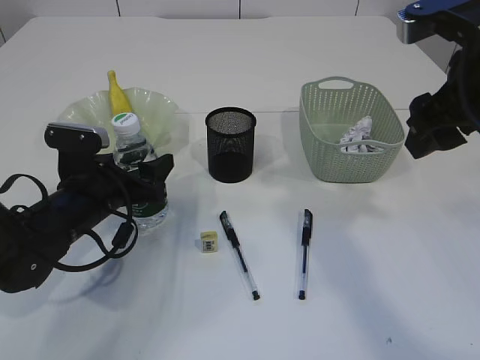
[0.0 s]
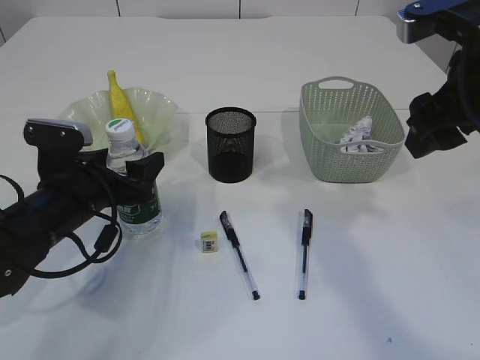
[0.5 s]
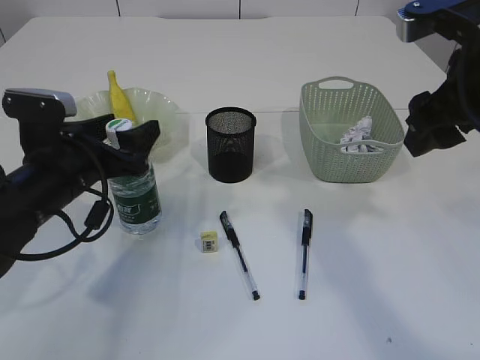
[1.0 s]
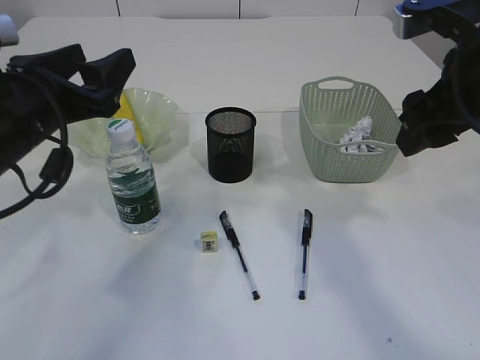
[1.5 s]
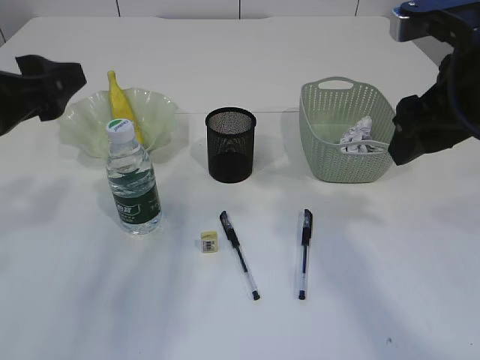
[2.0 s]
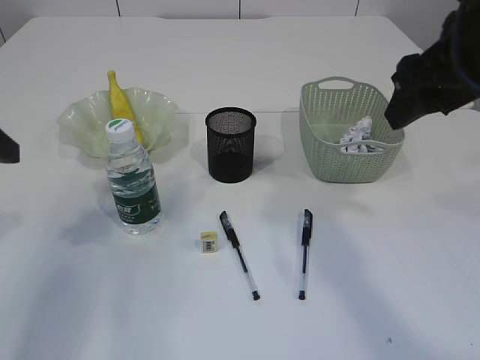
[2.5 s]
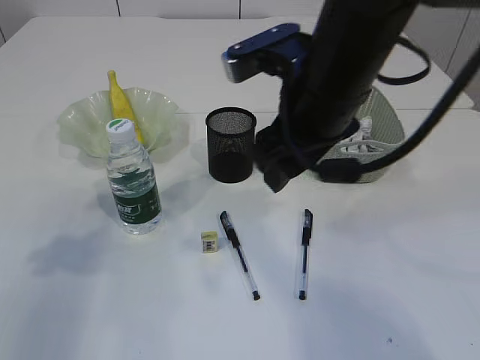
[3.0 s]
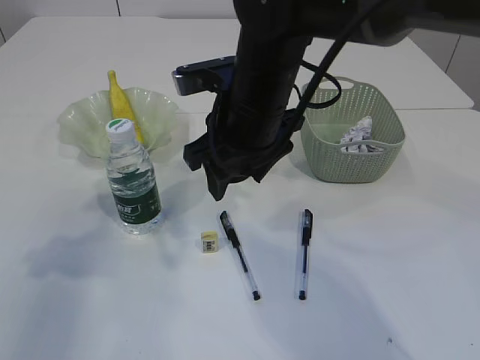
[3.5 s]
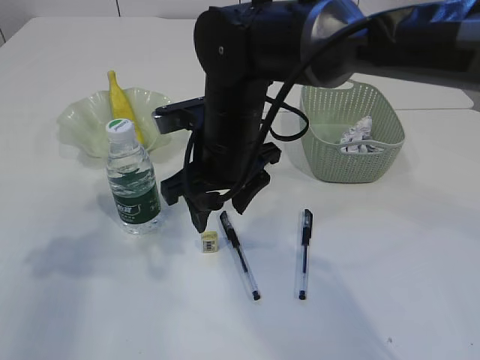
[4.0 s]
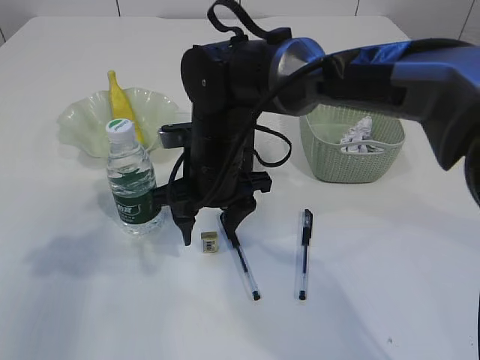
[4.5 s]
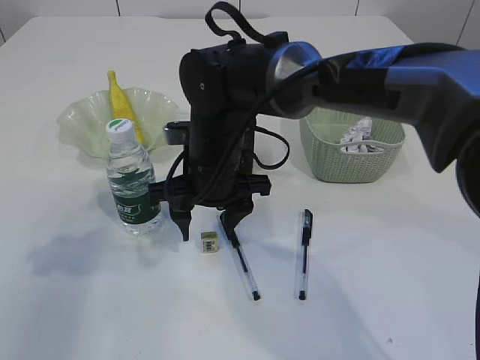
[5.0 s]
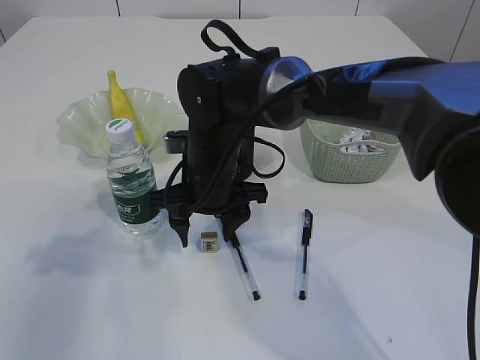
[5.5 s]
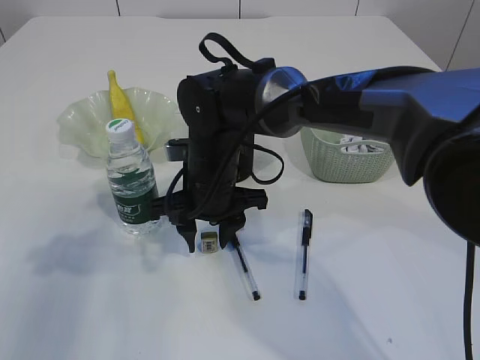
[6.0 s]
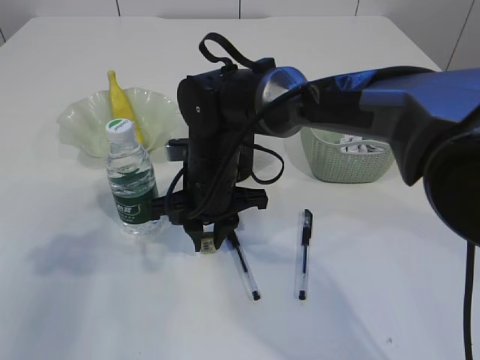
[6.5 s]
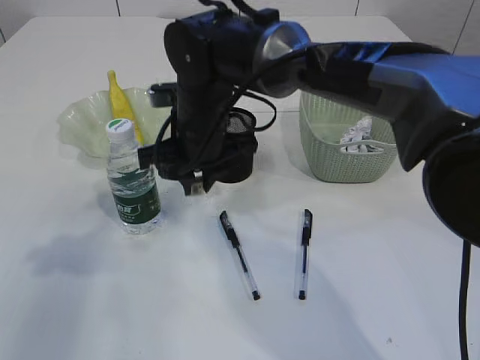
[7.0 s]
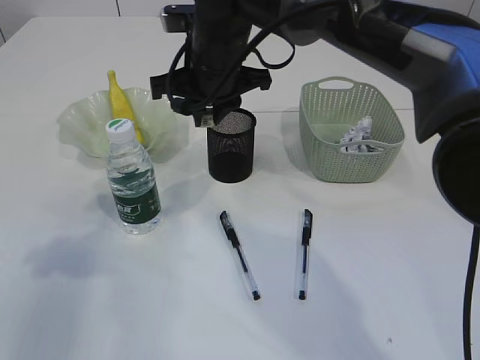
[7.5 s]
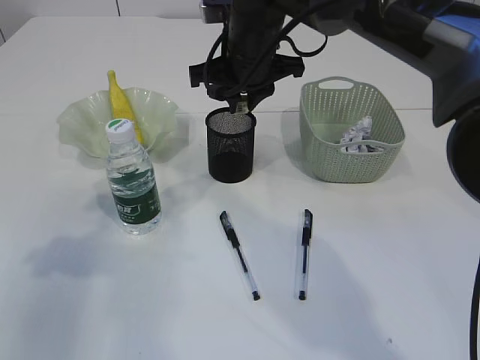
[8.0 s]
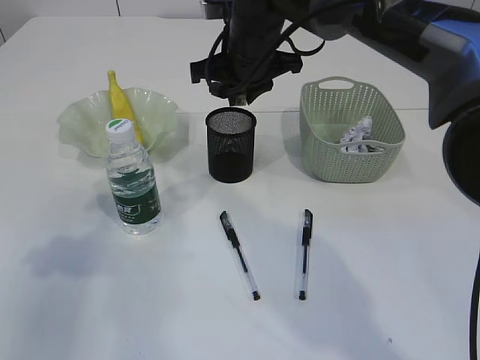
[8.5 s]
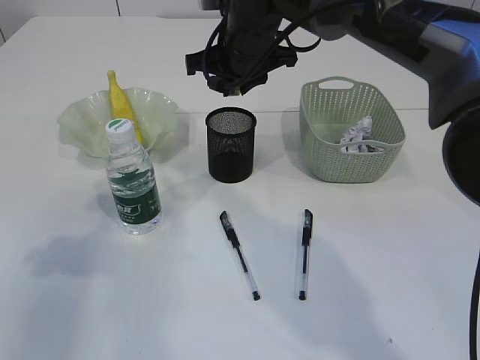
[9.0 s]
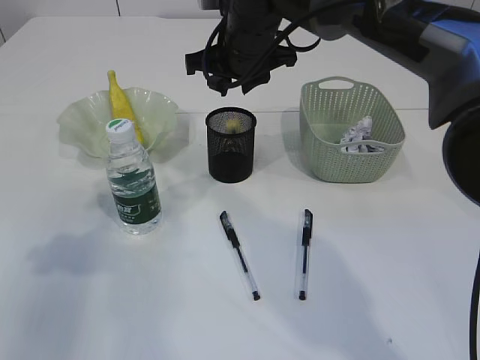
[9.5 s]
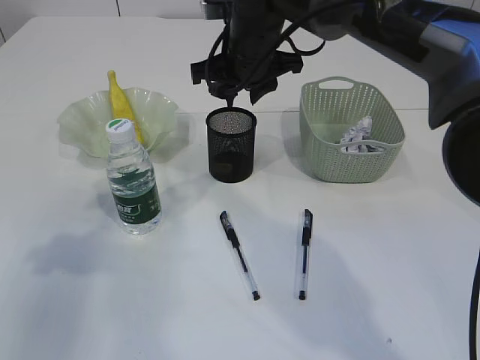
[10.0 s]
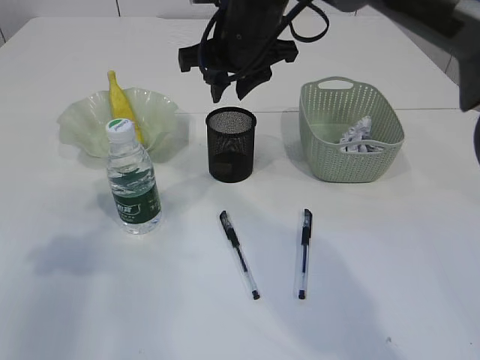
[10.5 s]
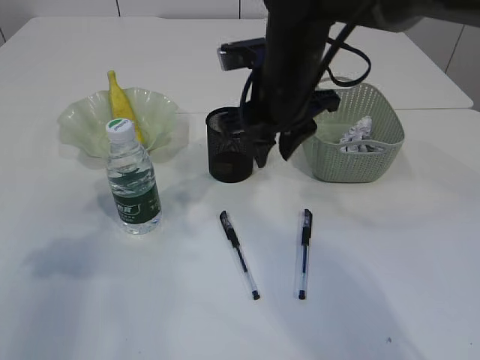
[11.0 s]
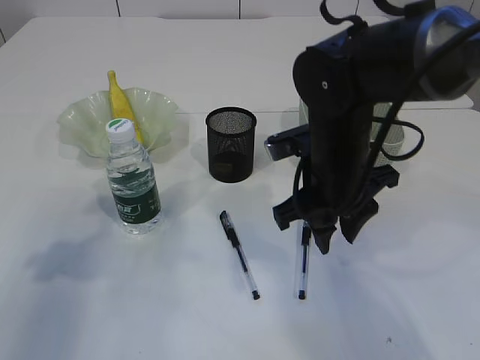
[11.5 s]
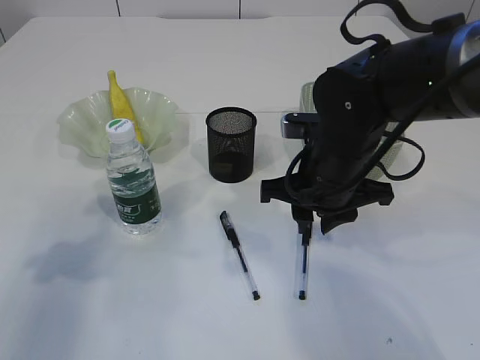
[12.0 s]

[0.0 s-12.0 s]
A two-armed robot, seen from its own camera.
Step, 2.0 to 6.5 s: Pick up the eraser.
Step, 7.0 to 10.5 s: Place the eraser into the pen holder.
0.0 to 2.0 s: The left gripper goes roughly 20 cm upward and backward.
2.0 to 4.0 s: The right gripper is displaced to the left and downward by about 25 cm, while the left gripper goes about 5 cm to the left.
4.0 to 6.0 s: The right gripper is displaced downward by approximately 5 cm.
6.0 to 8.0 s: The right gripper travels upward, forward and to the right by approximately 15 cm, and closes.
8.0 to 10.0 s: The grippers stay close to where they were, moving slightly.
10.0 to 12.0 s: The right gripper shifts some 15 cm backward, downward and to the right.

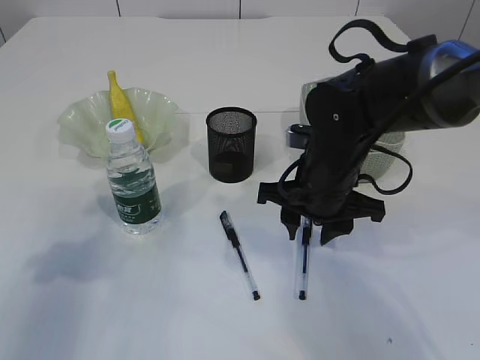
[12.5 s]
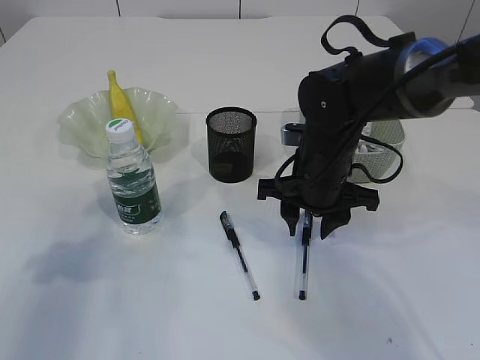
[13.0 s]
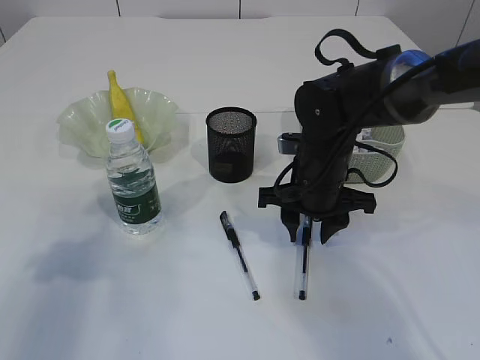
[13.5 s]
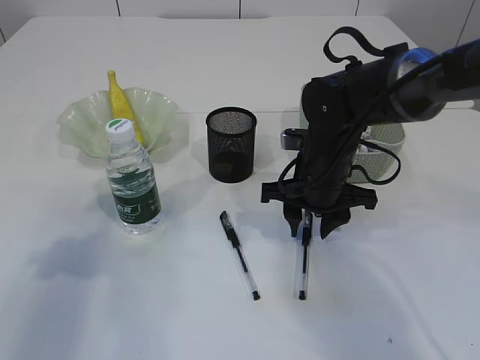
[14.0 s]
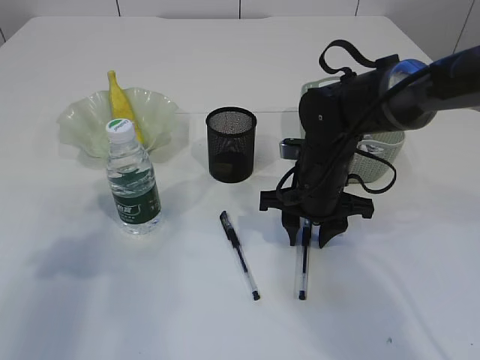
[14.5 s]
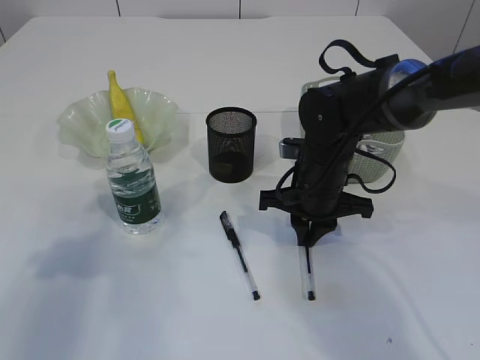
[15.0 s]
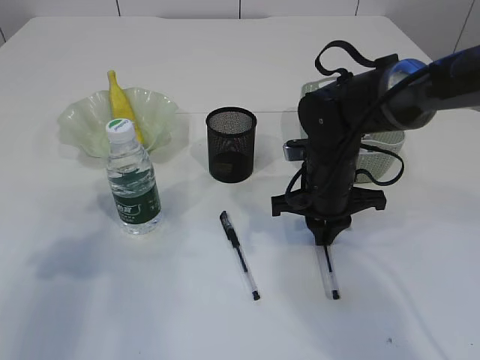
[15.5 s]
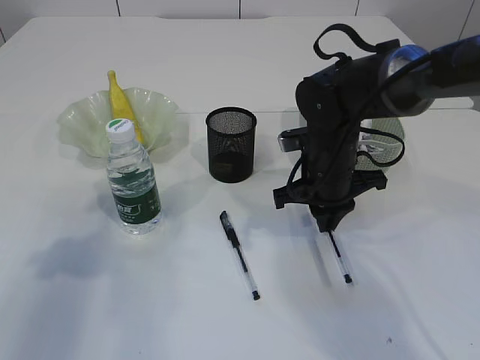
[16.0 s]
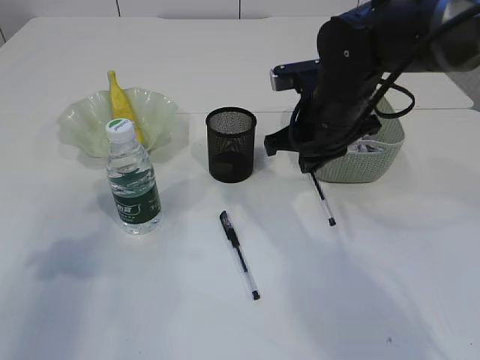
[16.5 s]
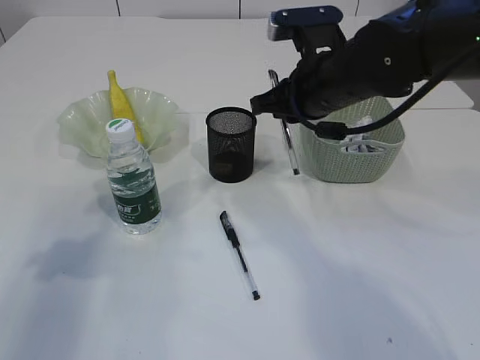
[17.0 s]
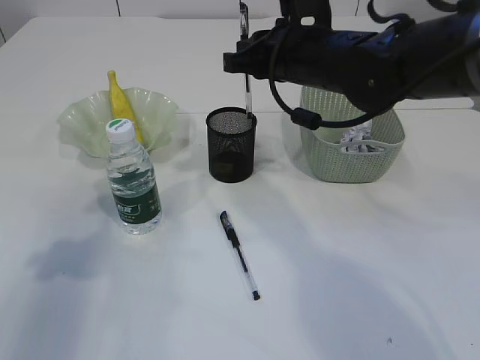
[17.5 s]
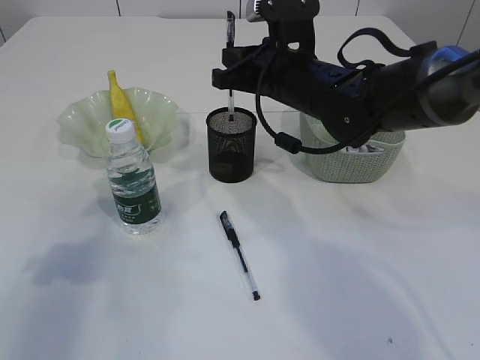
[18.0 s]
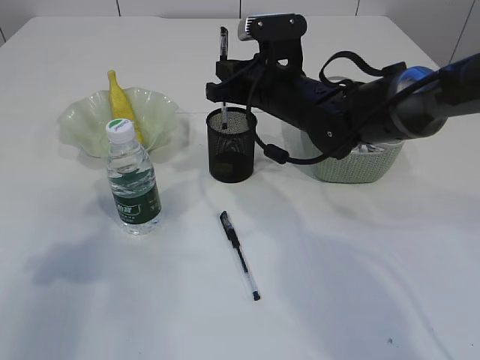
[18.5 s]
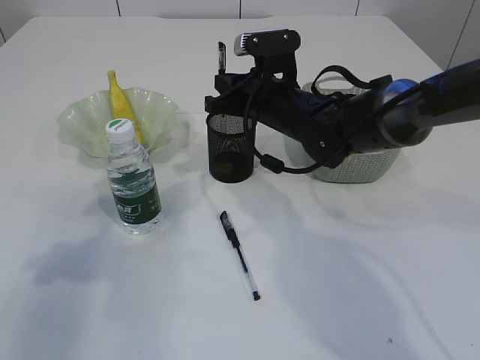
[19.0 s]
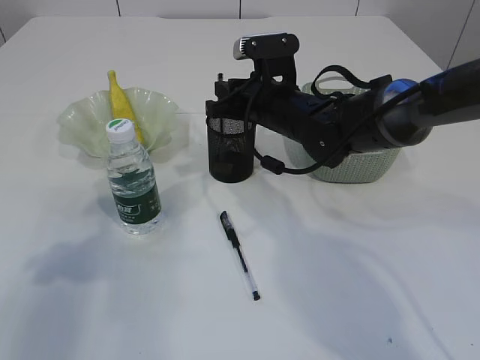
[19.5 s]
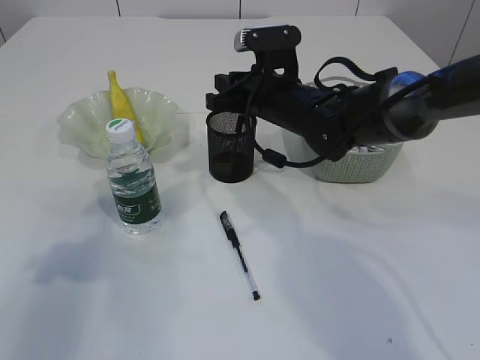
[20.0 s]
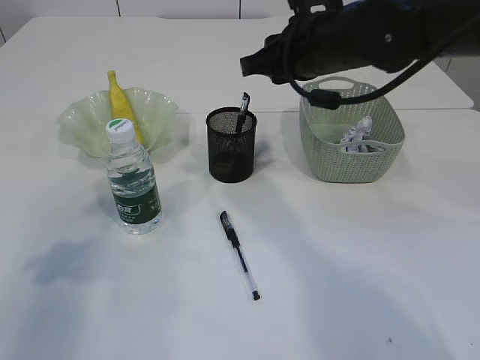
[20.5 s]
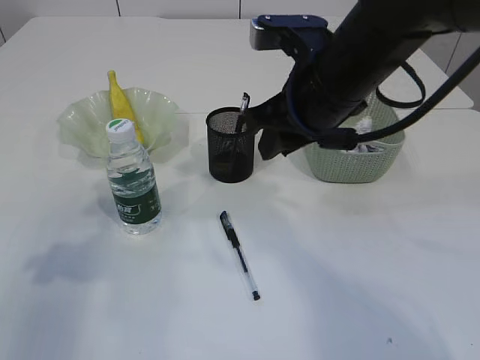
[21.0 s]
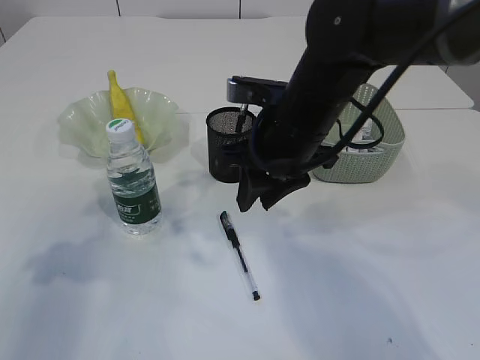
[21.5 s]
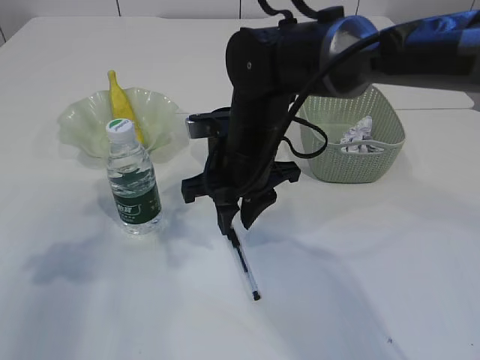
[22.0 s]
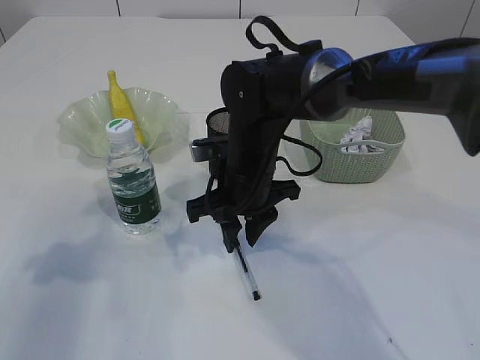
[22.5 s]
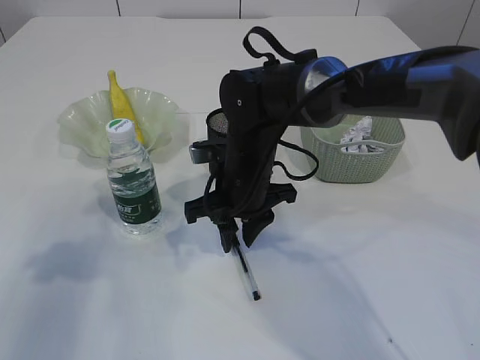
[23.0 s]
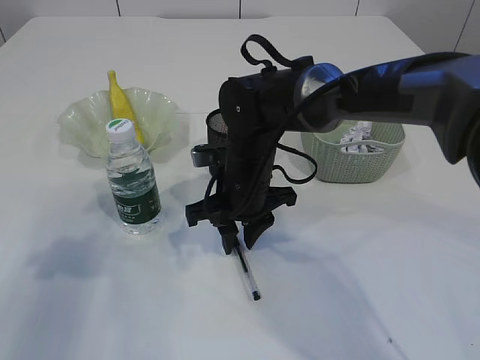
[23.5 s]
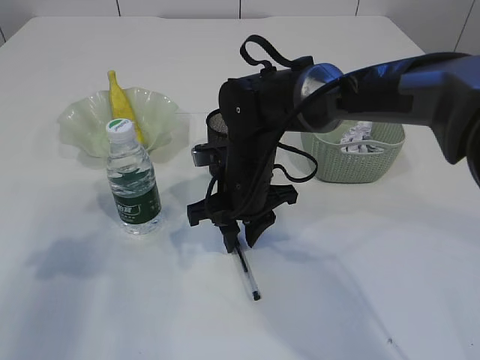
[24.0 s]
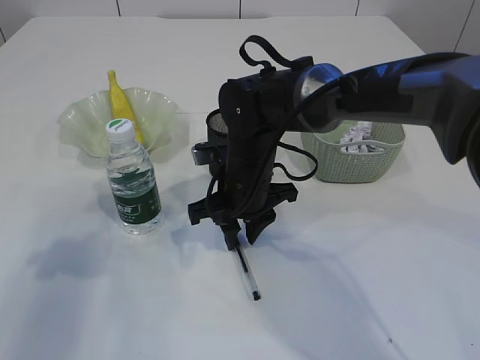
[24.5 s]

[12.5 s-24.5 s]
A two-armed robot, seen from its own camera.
Step, 12.5 to 16.0 s: Pick up the pen with right arm.
Step, 16.5 to 20.0 s: Place the pen into the pen holder.
12.5 to 14.5 s: The right gripper ends up about 5 cm from where it was.
14.5 to 16.5 s: The right gripper shifts roughly 10 cm upward, and closes.
16.5 to 18.5 s: The right gripper changes place by roughly 5 cm.
18.5 to 20.5 s: The right gripper travels upward by some 10 cm.
20.5 to 22.5 s: The right gripper is displaced downward and to the left by roughly 15 cm.
22.5 to 24.5 s: The grippers make only small movements.

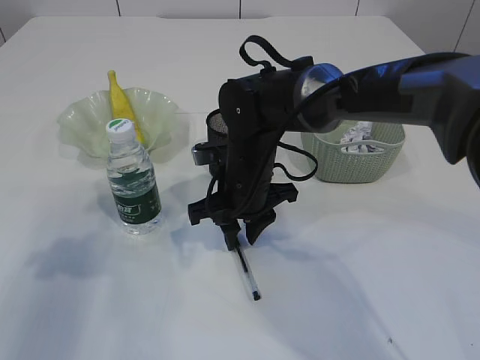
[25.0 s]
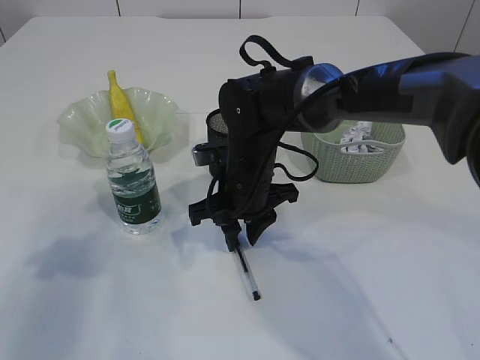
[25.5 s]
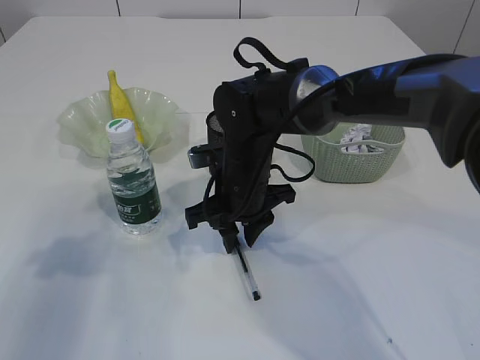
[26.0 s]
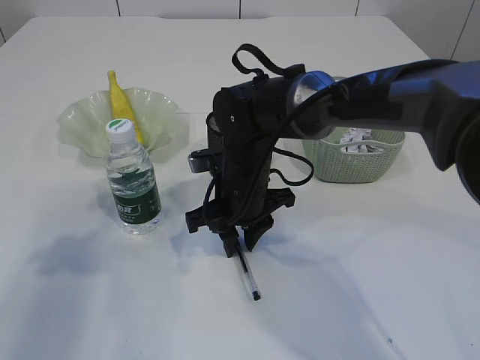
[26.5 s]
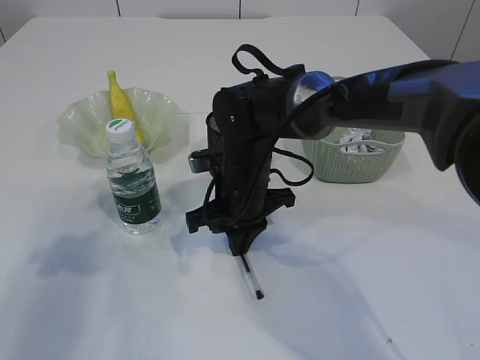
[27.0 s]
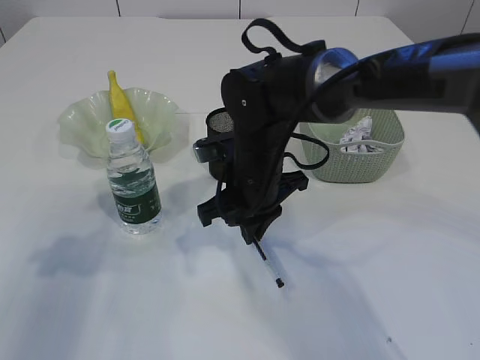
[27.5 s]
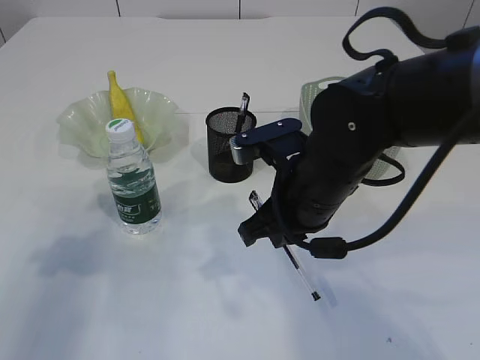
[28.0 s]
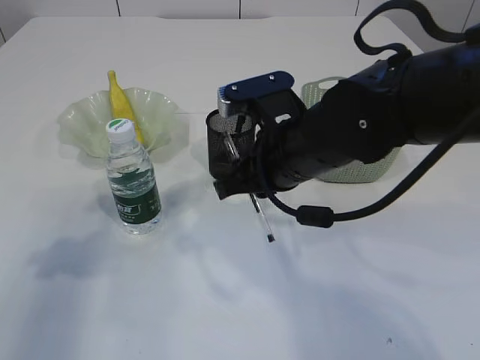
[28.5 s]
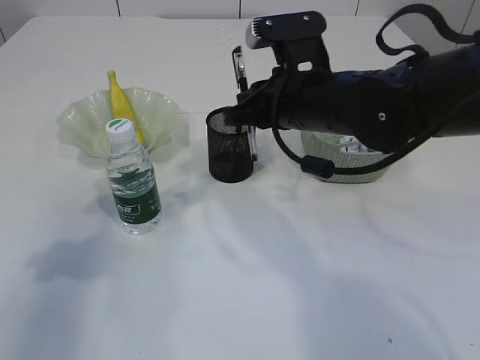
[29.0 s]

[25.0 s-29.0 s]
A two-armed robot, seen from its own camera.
Step, 25.0 to 28.0 s: Pick up the pen with right arm.
25.0 to 27.0 s: The right gripper closes.
27.0 to 29.0 s: The right gripper travels upward and to the right by approximately 15 cm.
